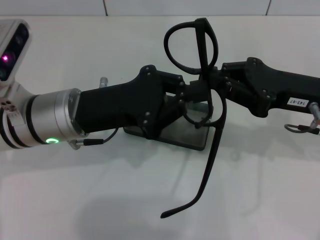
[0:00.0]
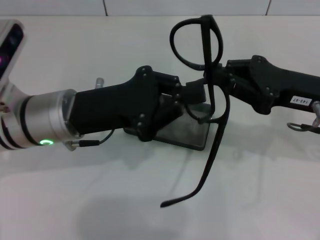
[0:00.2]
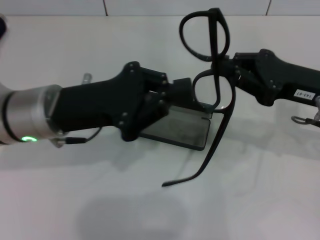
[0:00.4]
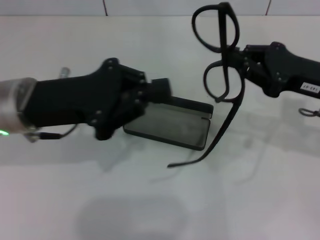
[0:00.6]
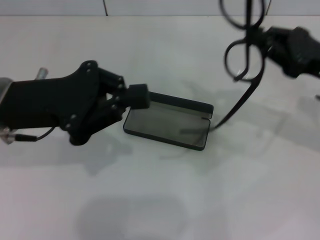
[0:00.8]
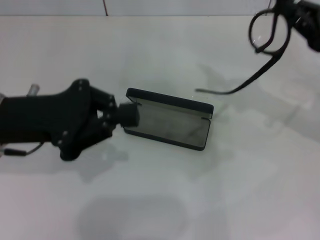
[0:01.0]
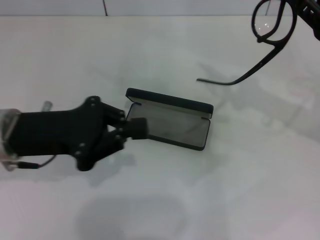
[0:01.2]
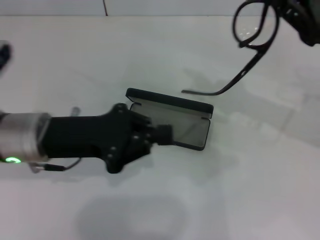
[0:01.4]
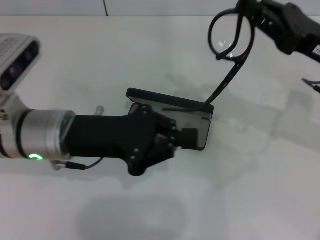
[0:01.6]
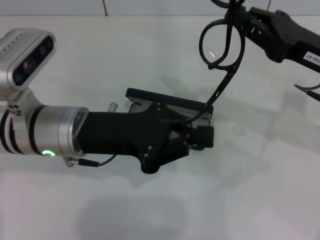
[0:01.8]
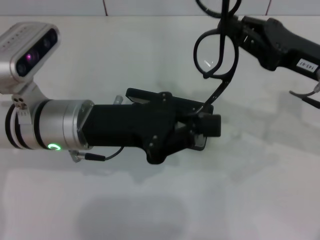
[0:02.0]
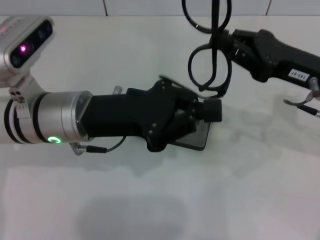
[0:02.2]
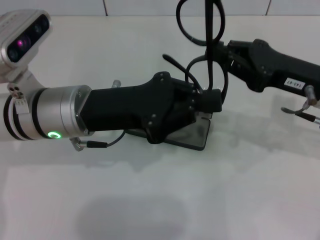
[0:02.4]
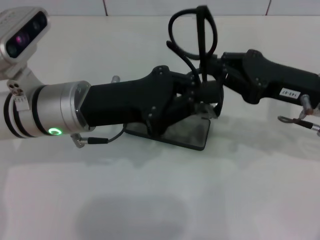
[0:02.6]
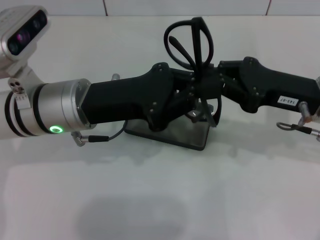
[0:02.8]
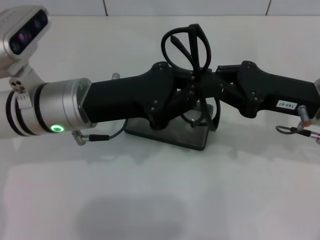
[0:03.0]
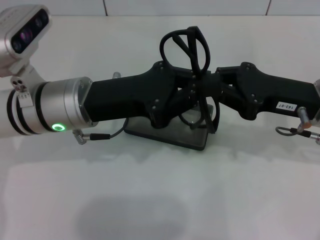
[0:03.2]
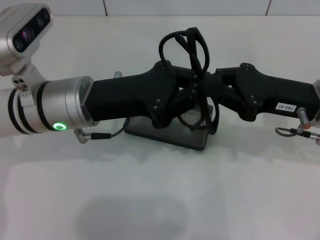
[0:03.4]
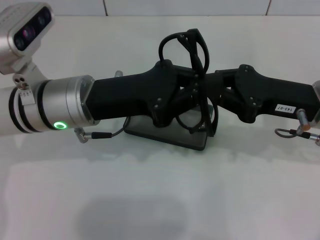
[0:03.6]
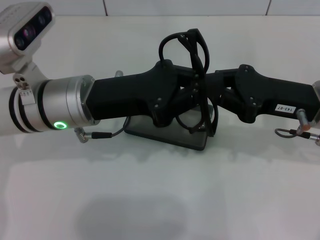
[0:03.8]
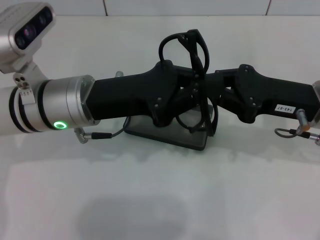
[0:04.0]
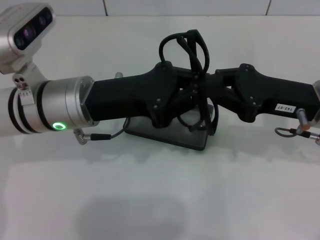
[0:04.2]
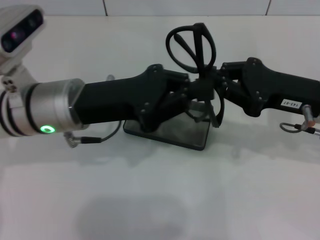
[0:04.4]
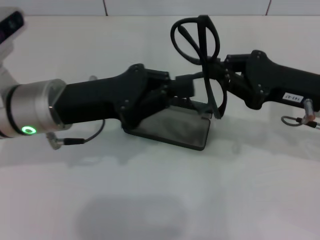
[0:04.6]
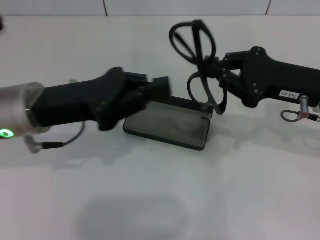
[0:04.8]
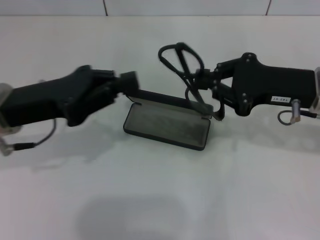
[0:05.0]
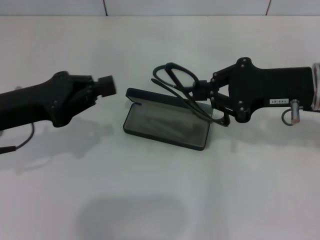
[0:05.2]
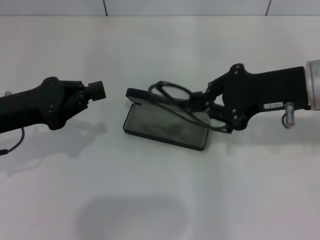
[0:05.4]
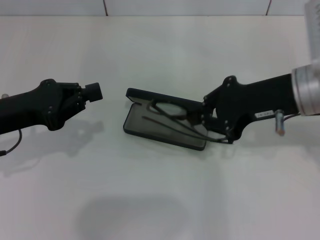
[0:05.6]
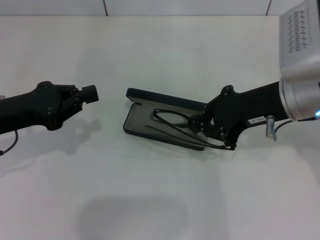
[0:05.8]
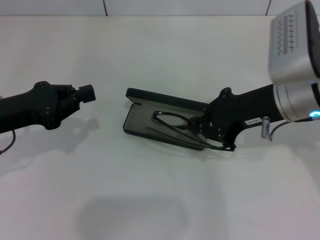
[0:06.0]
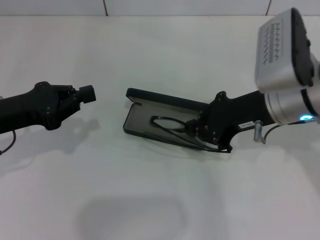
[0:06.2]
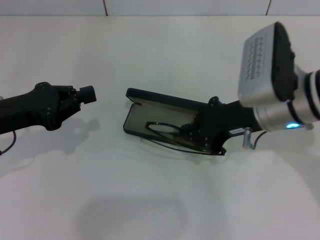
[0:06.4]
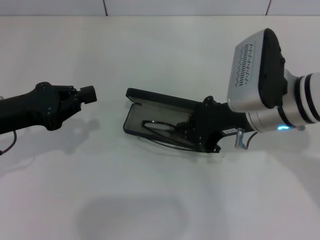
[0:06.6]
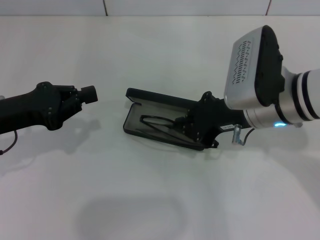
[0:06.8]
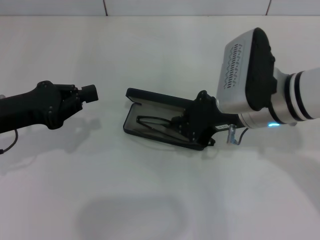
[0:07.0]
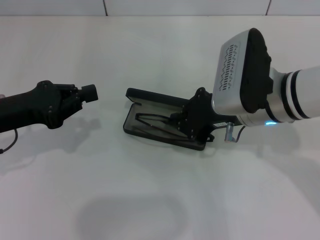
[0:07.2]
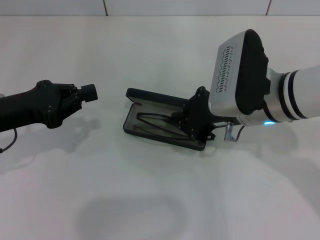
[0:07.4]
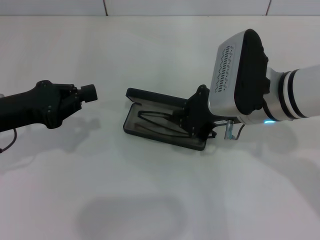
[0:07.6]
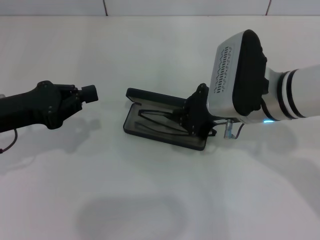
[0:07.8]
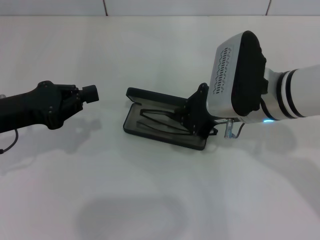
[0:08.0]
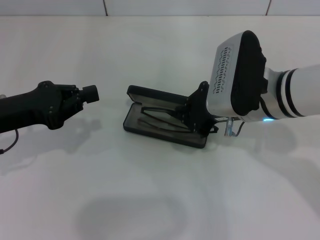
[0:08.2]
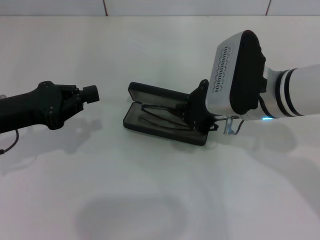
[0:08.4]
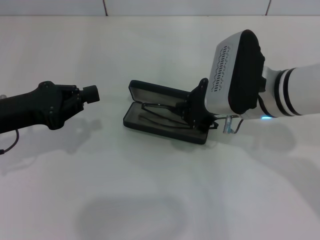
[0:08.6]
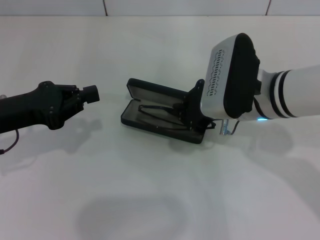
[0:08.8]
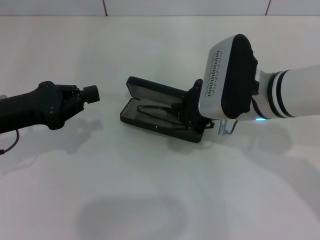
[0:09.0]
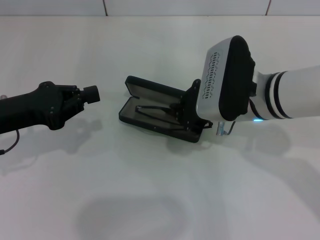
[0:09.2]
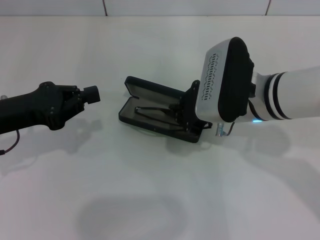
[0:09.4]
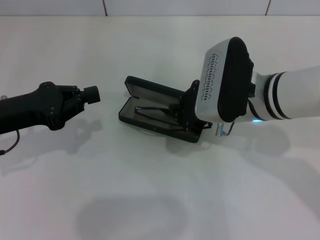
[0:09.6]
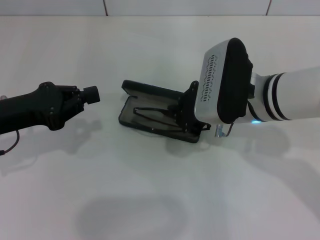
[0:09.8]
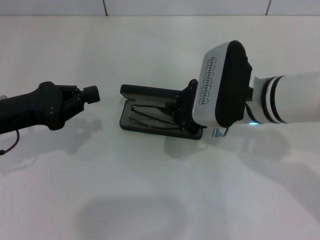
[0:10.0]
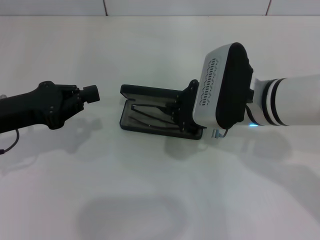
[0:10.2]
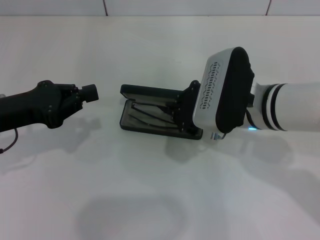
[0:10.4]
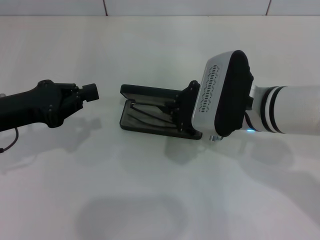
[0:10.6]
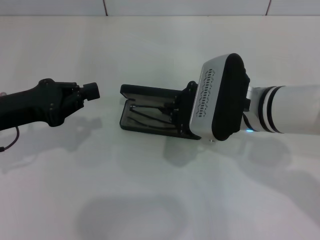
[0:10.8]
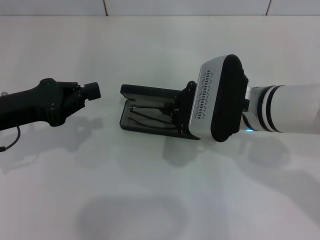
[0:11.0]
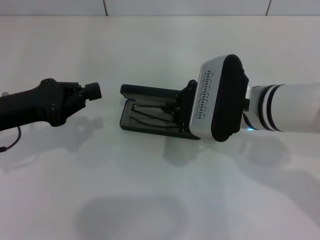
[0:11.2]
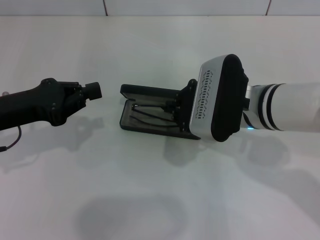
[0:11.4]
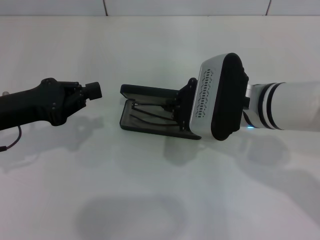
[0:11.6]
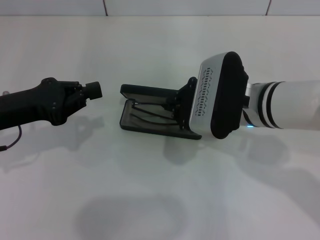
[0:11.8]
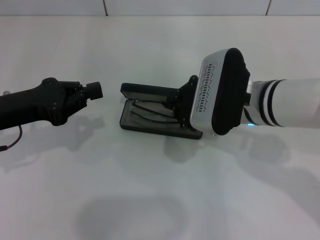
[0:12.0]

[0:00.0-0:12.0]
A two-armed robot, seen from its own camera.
Step, 0:00.0 to 0:04.2: Fold the frame with your left hand.
0:00.0 to 0:01.6: The left gripper moves about 10 cm to the left and comes back.
0:03.0 to 0:04.4: Both grippers stay about where they are.
0:04.4 to 0:06.0: The left gripper travels to the left by roughly 15 cm; the right gripper travels to the left by about 5 cm.
0:06.0 to 0:07.6: The right gripper ends up roughly 5 cm from where it was.
0:07.6 to 0:12.0: There are only small adjustments of the grippers.

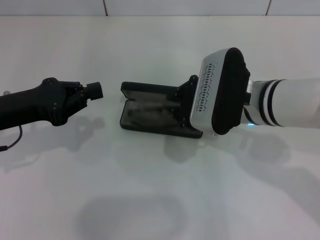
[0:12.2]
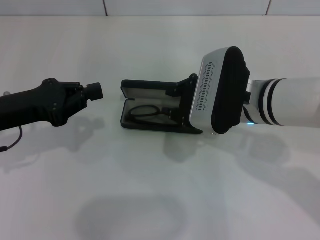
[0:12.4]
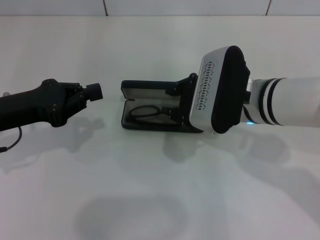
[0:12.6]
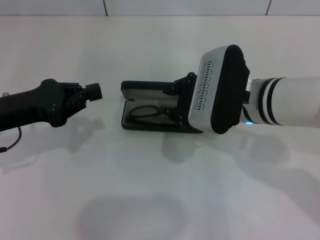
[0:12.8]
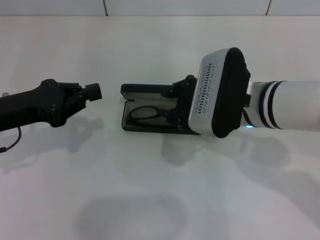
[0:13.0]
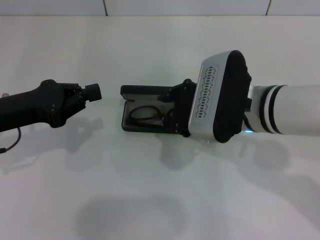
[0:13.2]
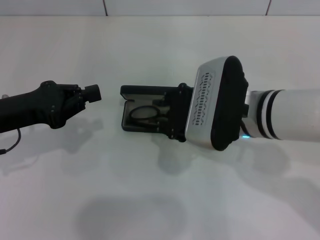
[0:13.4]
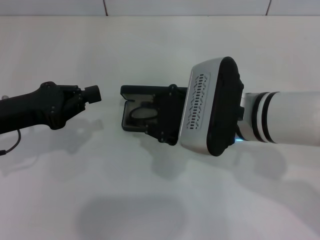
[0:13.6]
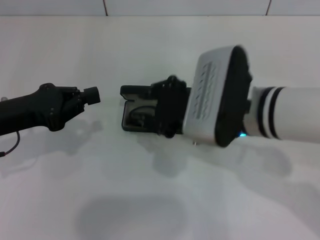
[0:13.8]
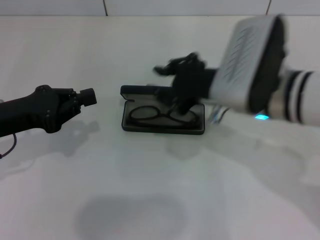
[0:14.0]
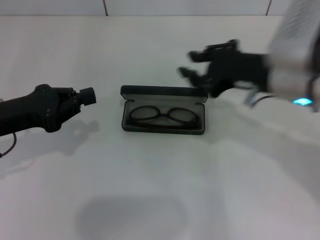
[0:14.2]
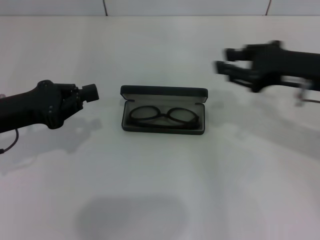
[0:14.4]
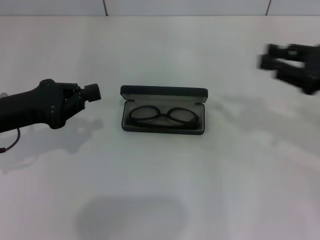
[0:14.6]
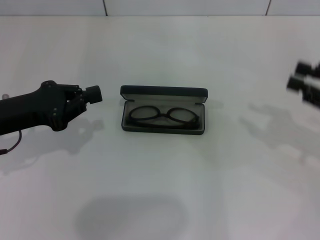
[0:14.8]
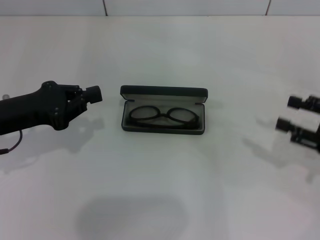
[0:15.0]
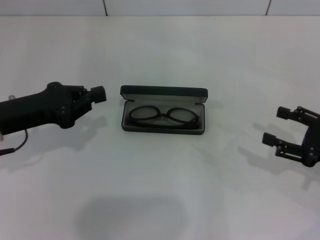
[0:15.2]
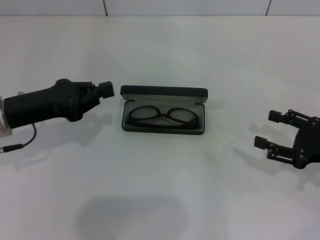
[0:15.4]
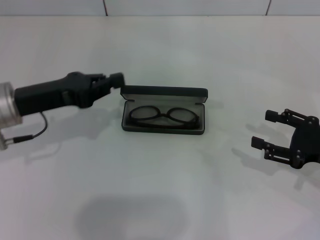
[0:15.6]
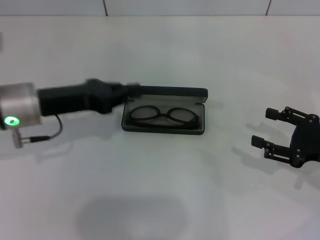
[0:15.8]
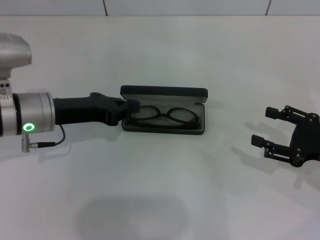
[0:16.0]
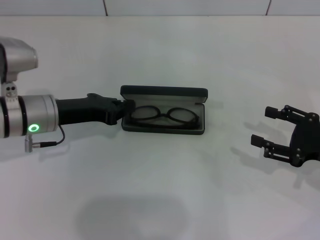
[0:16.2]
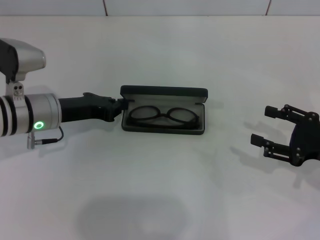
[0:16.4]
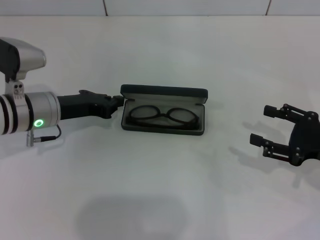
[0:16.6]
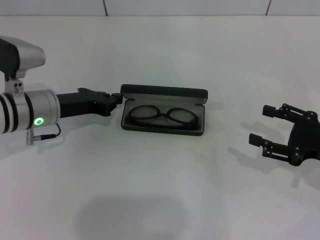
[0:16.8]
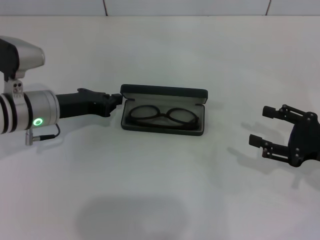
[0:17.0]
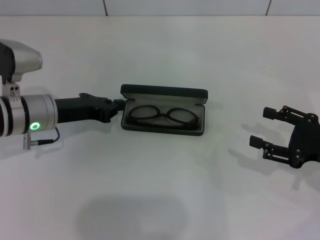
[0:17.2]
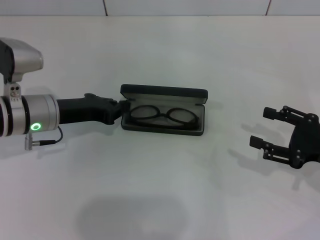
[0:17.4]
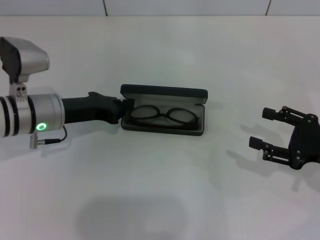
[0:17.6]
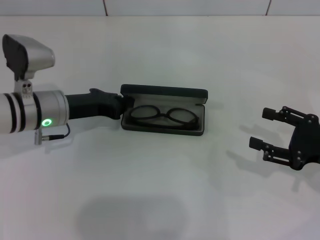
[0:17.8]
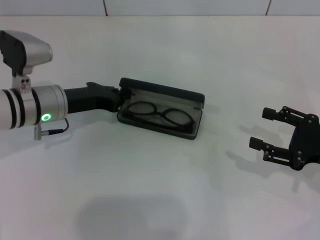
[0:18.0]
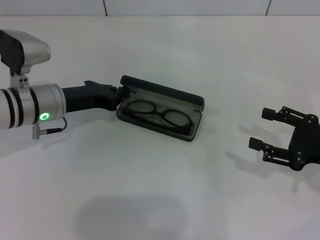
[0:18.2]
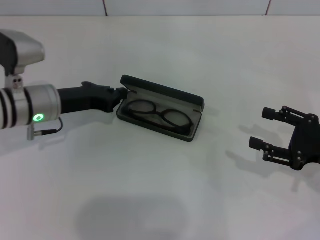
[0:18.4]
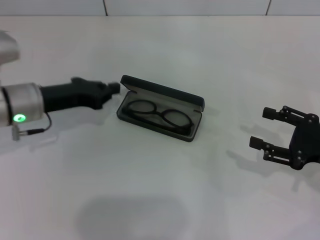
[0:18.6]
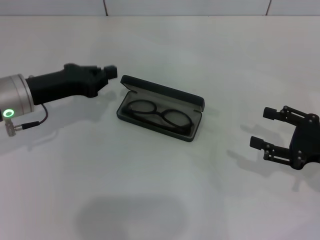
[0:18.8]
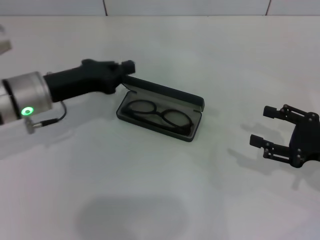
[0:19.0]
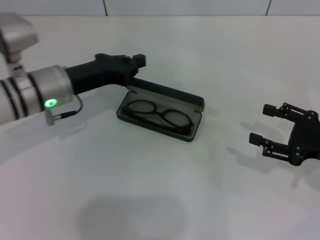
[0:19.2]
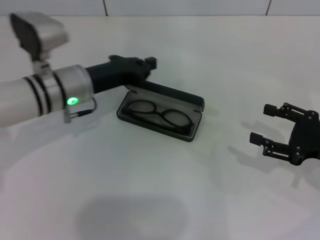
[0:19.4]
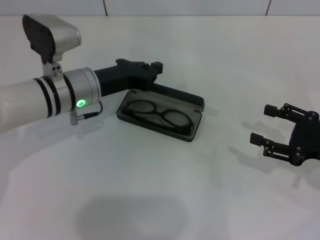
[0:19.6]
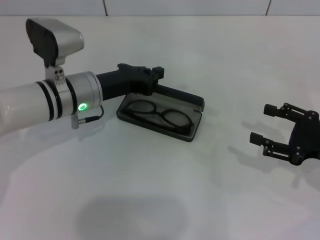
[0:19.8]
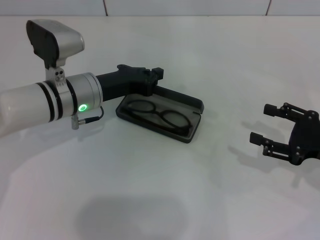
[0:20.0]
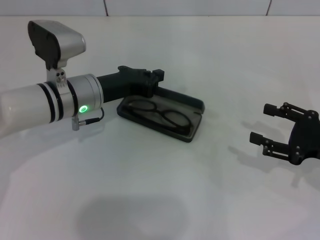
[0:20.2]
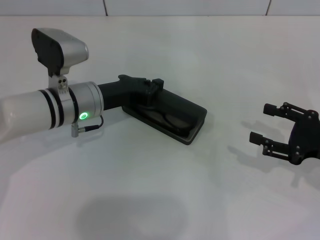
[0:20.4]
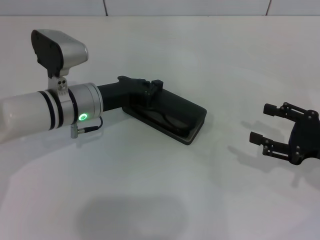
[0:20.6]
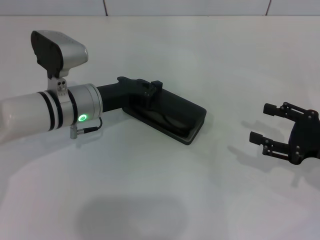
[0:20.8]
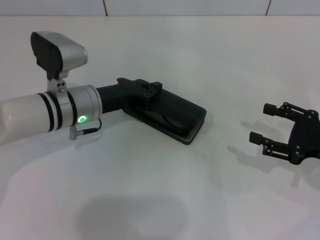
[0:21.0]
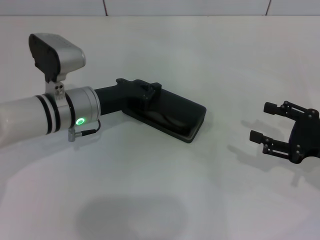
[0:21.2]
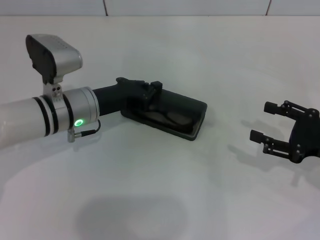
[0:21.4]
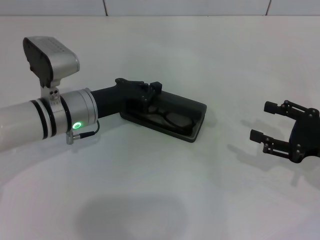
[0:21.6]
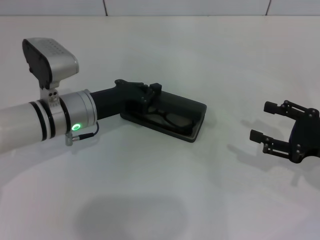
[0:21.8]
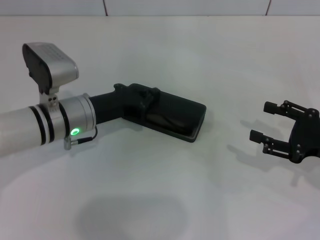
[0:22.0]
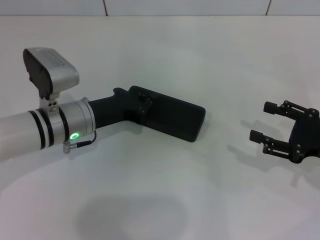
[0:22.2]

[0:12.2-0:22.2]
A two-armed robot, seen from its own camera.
0:12.2 to 0:13.6: The grippers make only small movements.
0:13.6 to 0:15.0: The right gripper heads to the right, covering approximately 25 cm.
0:15.0 to 0:16.4: The left gripper is displaced forward and to the right by approximately 10 cm. The right gripper opens up.
0:16.4 to 0:18.0: Neither gripper changes place.
0:18.0 to 0:22.2: The grippers move only a little.
